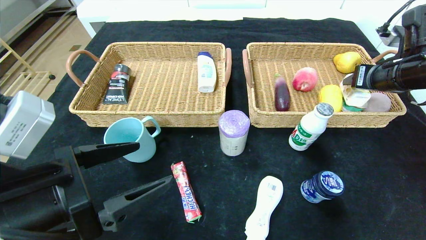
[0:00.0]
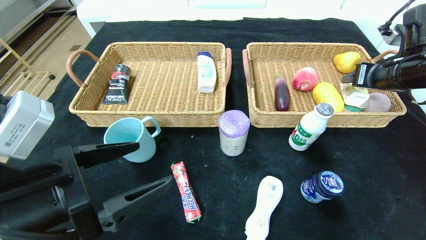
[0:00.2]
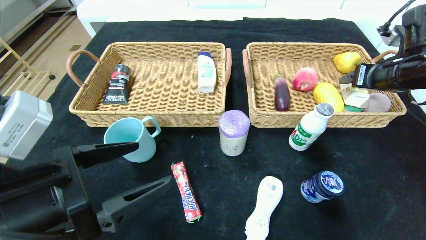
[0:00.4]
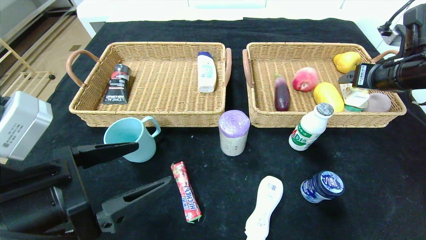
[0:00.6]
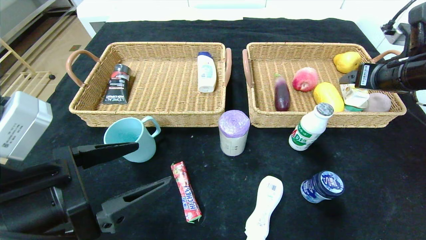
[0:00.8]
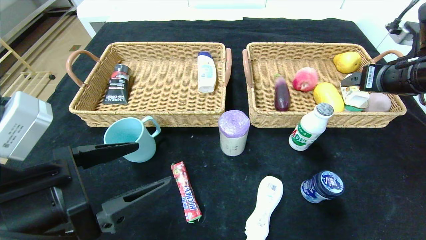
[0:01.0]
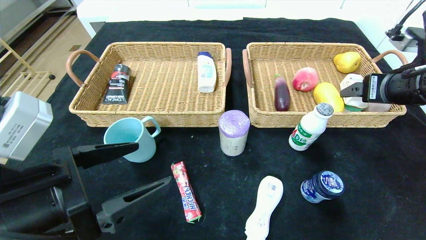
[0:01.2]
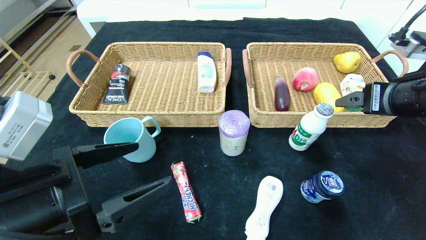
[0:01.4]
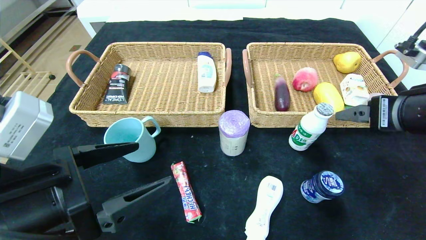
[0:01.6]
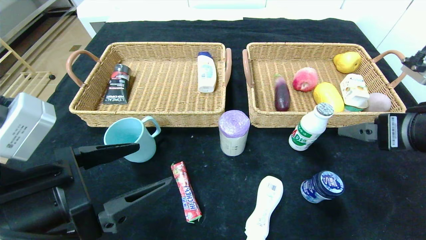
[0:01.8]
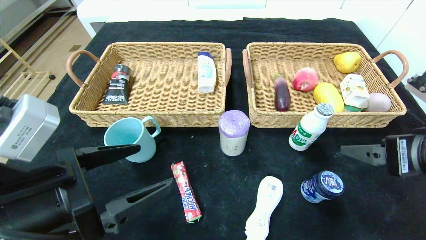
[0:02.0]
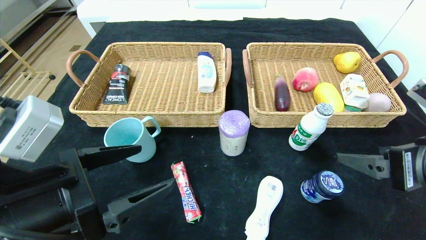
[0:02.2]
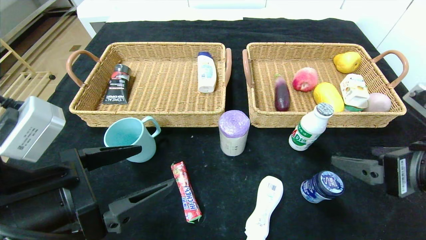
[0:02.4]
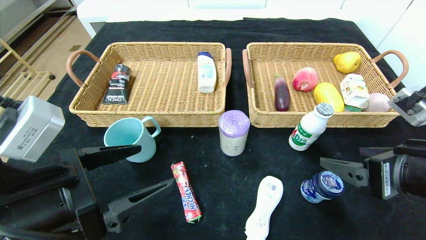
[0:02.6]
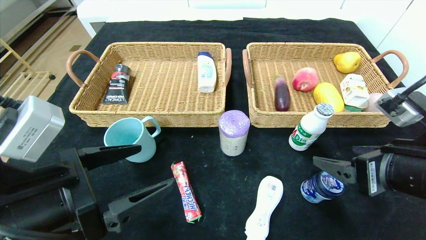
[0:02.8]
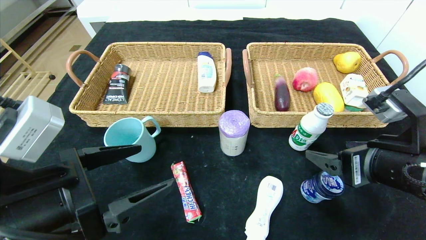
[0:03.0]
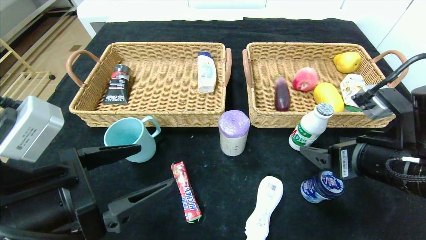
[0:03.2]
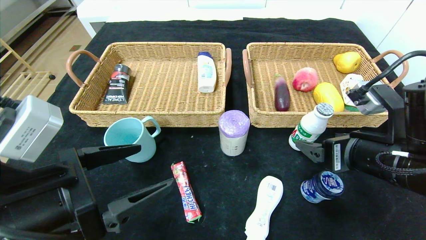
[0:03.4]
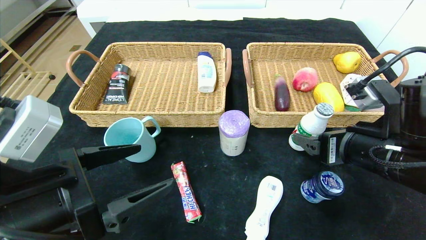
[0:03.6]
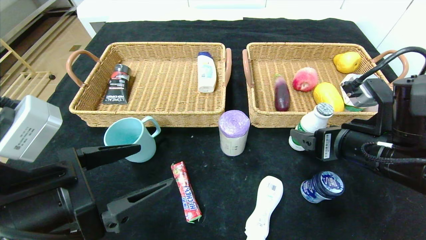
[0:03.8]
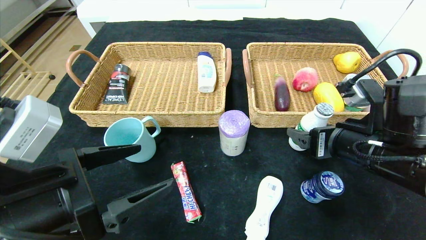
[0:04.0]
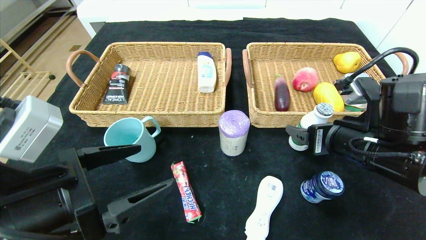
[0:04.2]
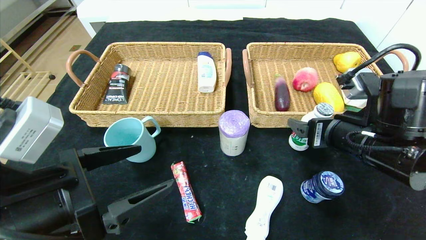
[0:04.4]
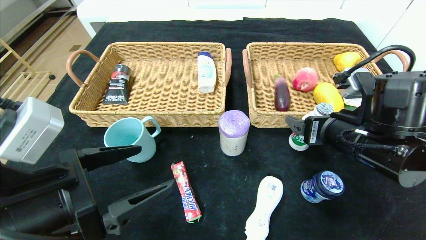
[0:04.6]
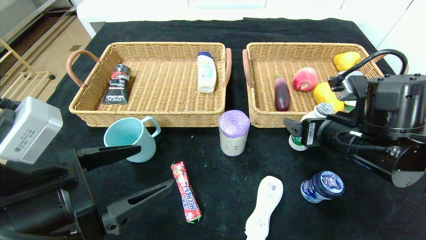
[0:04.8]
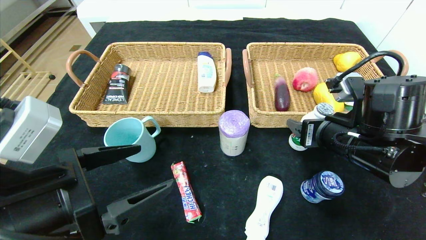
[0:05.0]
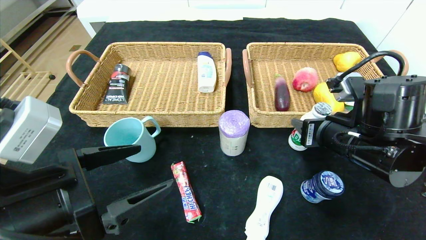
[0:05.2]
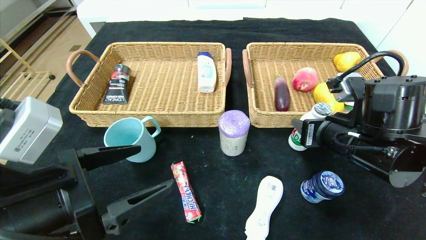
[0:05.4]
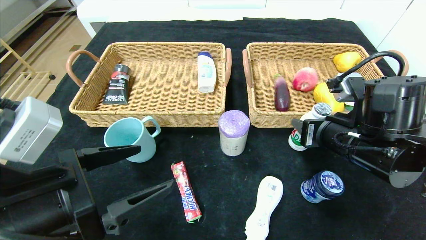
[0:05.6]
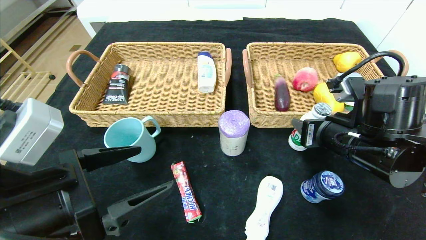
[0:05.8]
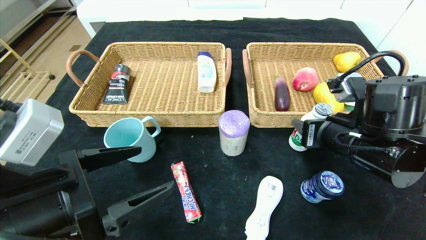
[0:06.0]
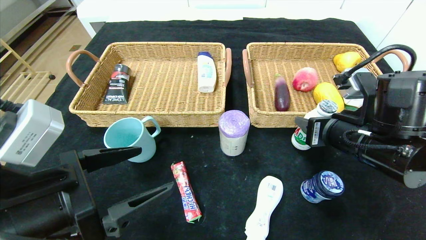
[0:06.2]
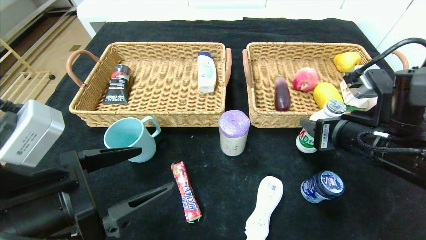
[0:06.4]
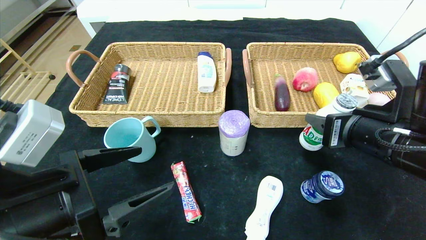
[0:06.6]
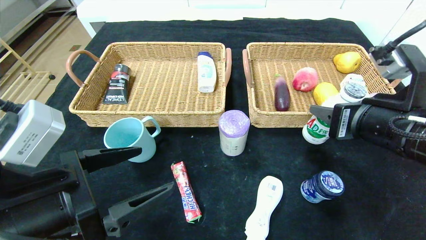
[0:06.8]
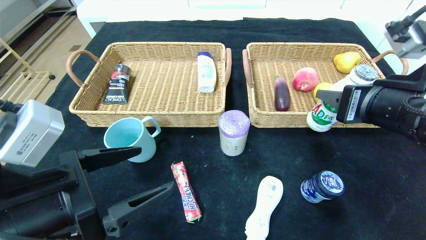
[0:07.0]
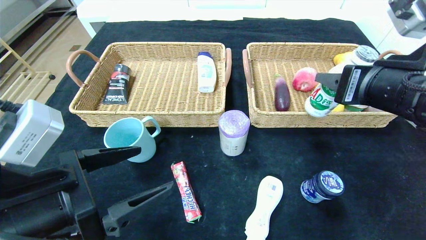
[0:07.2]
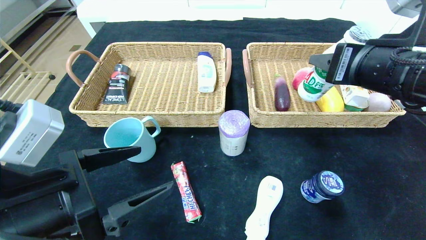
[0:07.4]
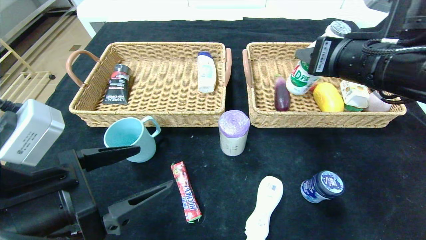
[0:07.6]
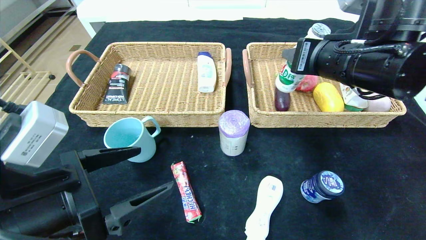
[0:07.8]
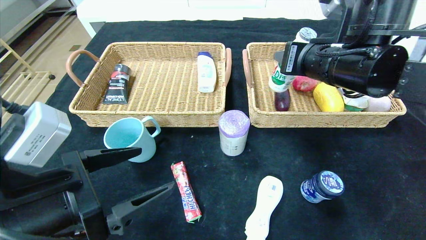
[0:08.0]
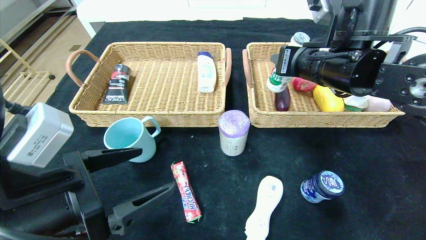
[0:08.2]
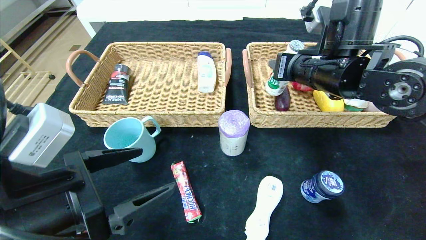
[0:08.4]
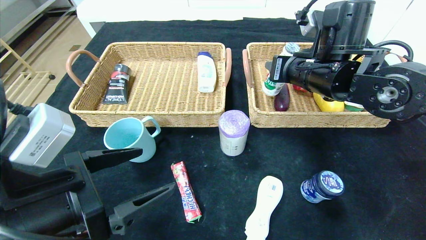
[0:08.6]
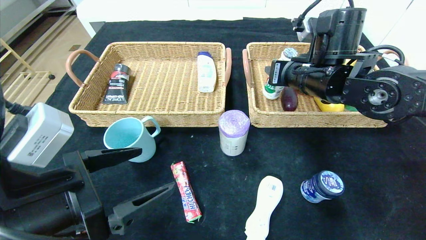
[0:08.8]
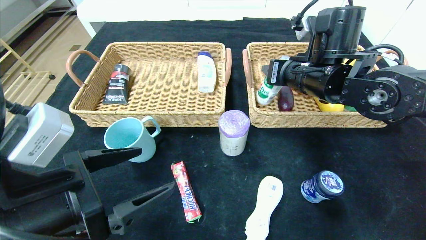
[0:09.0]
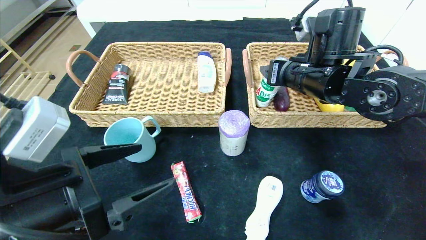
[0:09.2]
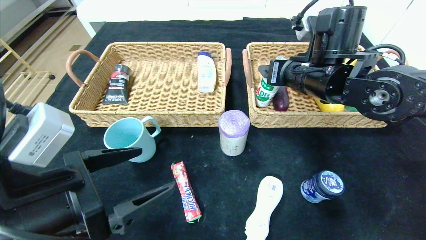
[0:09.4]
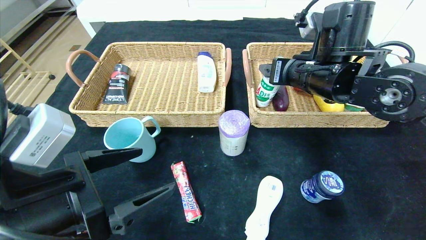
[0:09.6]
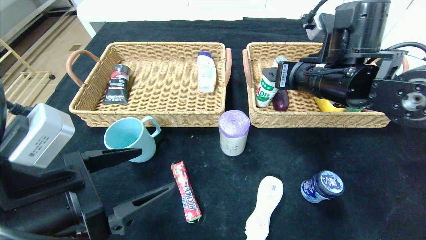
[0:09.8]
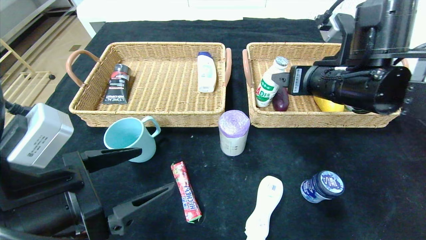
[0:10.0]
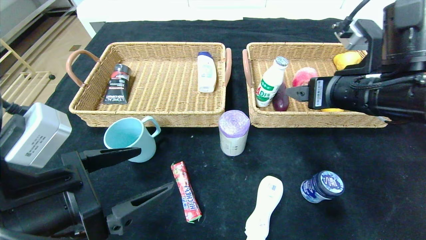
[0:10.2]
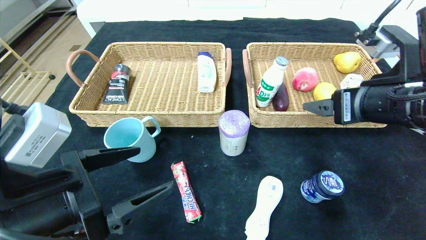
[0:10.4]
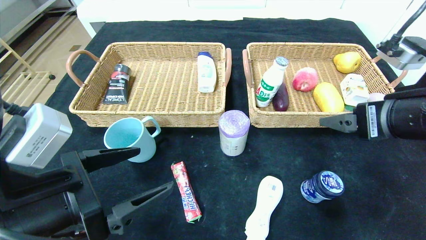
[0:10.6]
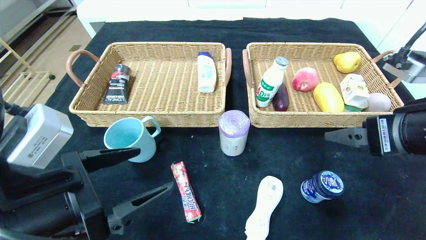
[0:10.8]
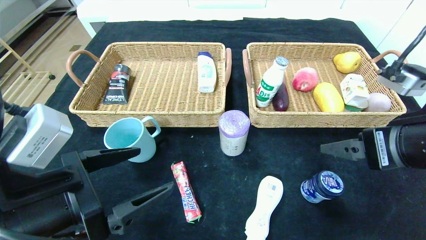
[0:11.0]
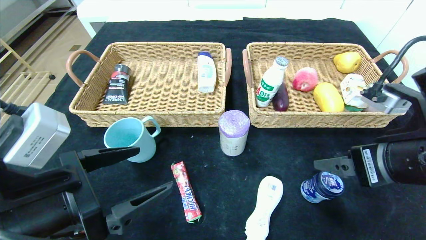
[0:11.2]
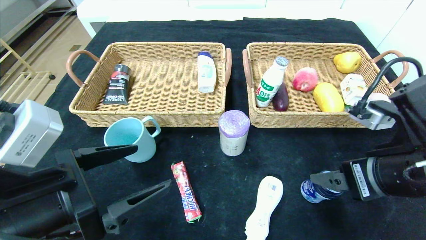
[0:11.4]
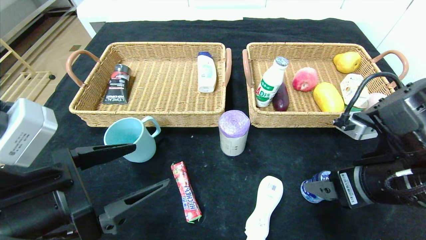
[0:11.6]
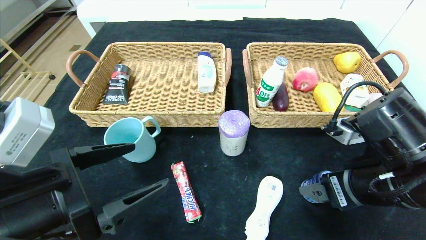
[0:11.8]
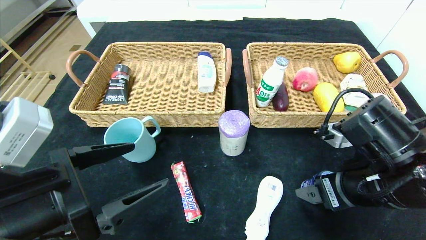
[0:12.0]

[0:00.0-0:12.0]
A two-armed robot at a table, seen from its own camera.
Step, 0:00.6 to 0:09.4: Grasp the ad milk and put it in the right basket.
0:00.0 to 0:01.6: The right gripper travels backward and to the left by approximately 15 cm, and opens up.
0:01.6 to 0:03.0: The right gripper moves downward, about 5 cm.
0:03.0 to 0:04.4: The right gripper is displaced forward by roughly 5 cm.
0:04.4 to 0:06.0: The right gripper closes up.
0:06.0 to 0:07.6: The right gripper is displaced upward by roughly 10 cm.
0:07.6 to 0:09.0: The right gripper goes roughly 10 cm forward.
0:09.0 to 0:10.4: The right gripper heads backward and to the right, covering some 15 cm, and opens its fingers.
0:10.4 to 0:12.0: The right gripper moves downward, approximately 10 cm.

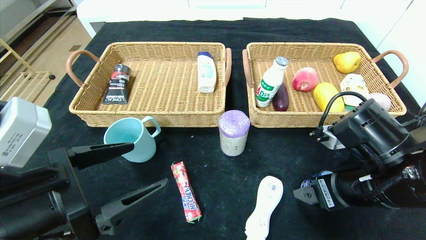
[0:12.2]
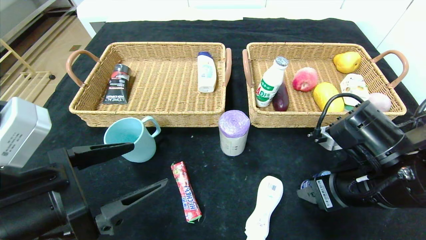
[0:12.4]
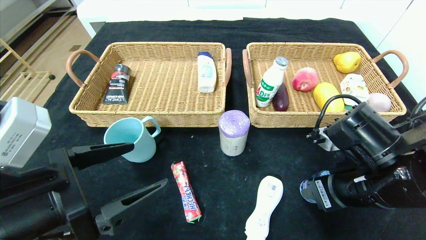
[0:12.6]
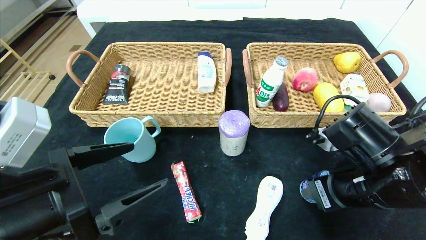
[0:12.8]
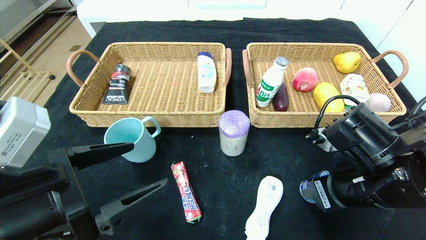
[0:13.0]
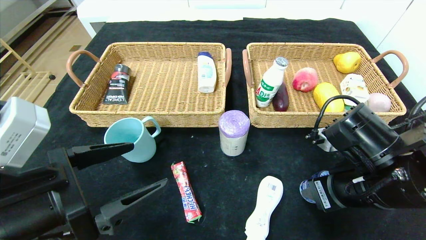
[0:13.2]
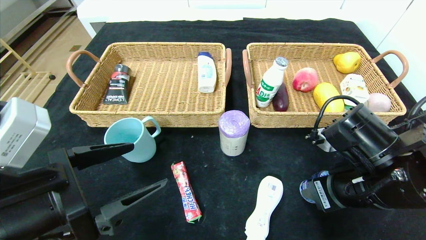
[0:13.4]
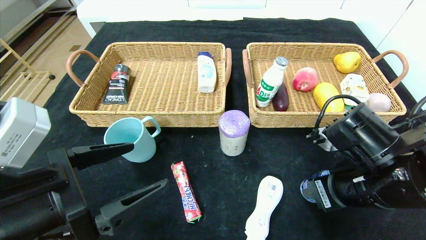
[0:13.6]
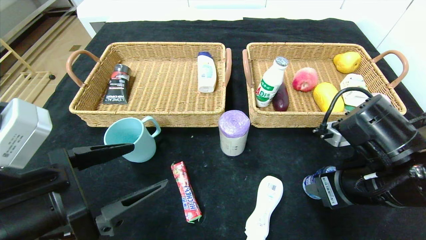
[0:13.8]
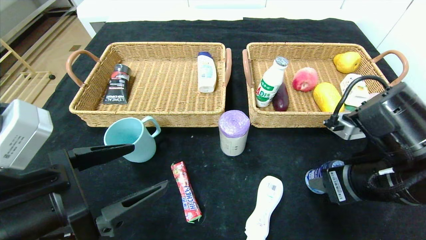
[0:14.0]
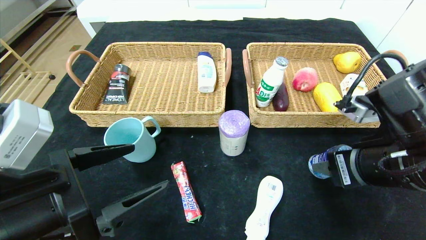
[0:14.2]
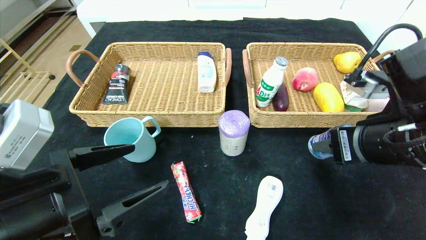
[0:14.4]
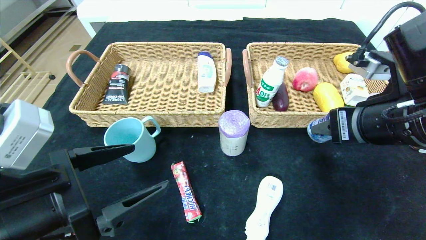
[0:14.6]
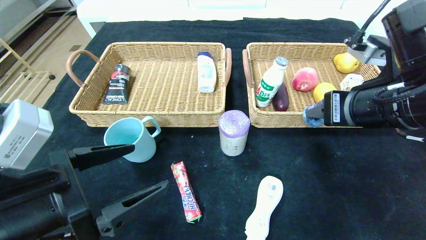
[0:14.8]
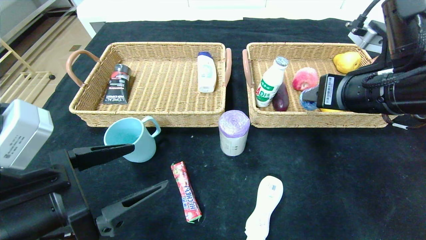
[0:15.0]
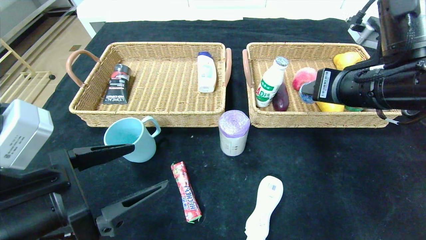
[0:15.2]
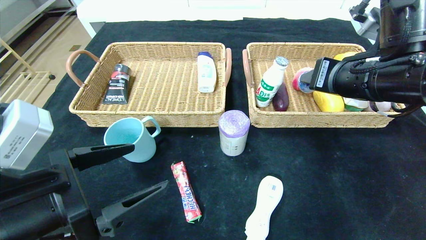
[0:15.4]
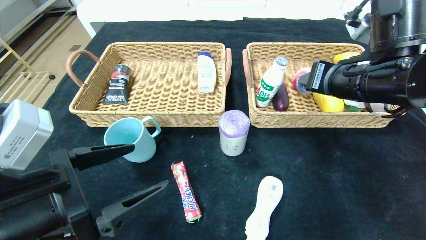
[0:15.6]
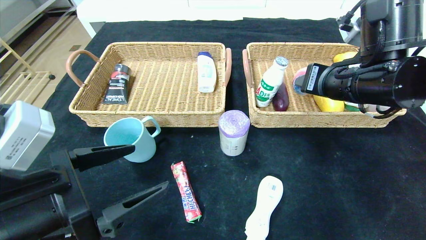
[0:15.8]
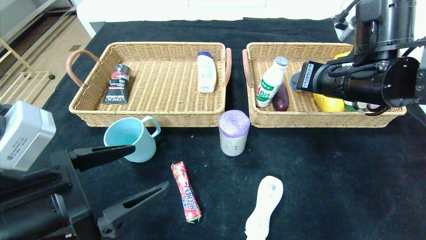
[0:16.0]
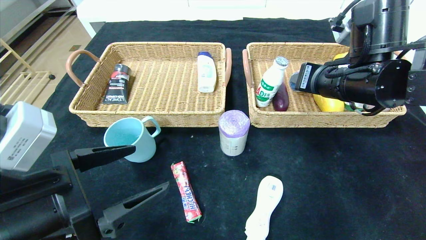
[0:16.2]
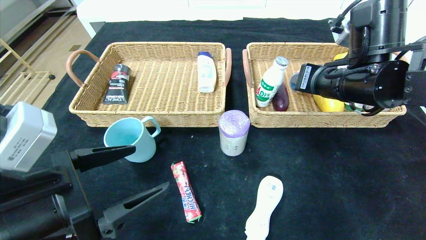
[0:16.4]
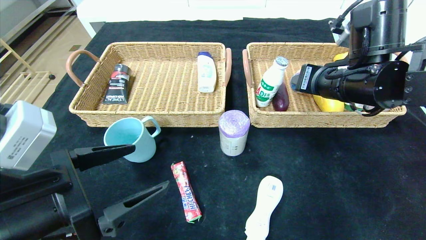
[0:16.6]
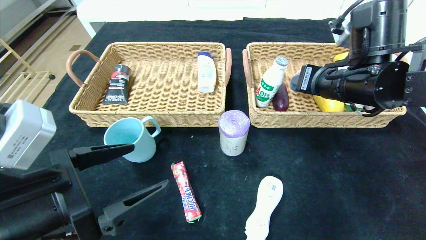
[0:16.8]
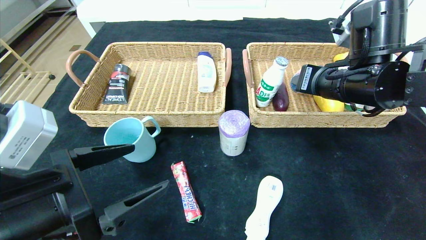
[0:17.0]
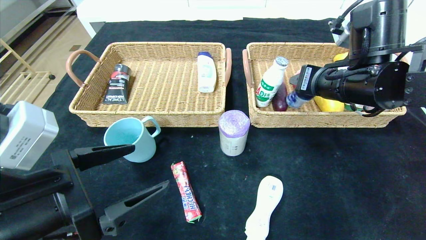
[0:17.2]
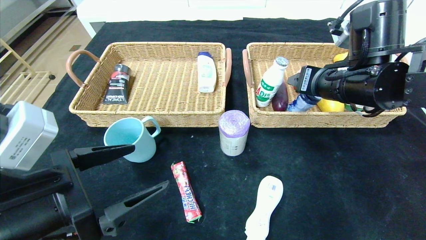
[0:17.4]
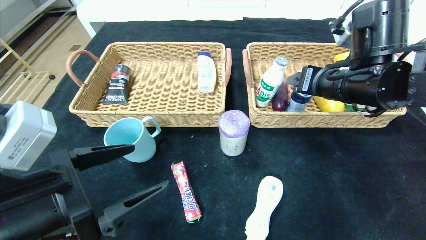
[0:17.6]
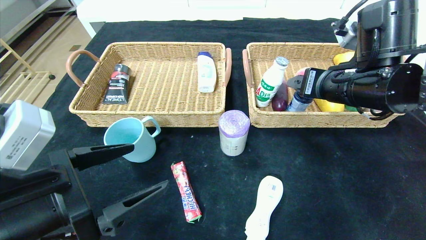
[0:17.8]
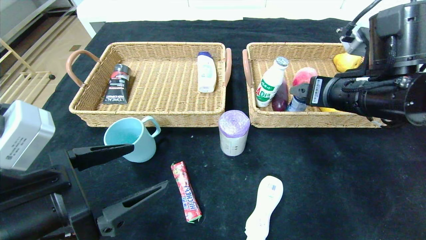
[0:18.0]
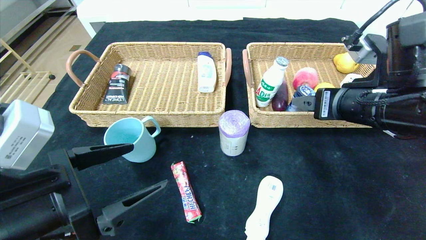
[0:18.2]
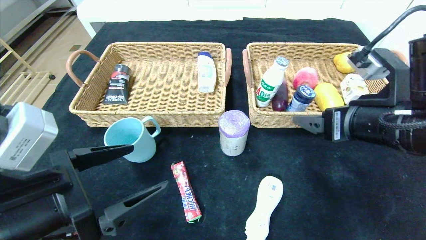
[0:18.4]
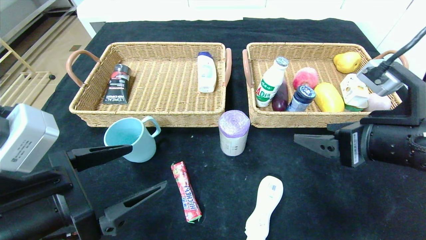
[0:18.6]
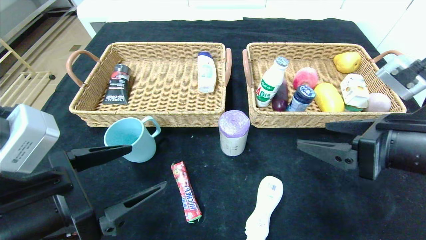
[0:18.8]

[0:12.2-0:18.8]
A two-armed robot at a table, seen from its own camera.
Step, 0:12.2 to 0:17.2: Grasp the round chewing gum and put it in the right basket.
0:12.2 to 0:13.8: The right gripper closes its fingers.
0:13.8 to 0:15.4: The right gripper shifts some 10 cm upward and forward.
0:15.4 to 0:17.2: The grippers make only small movements.
0:17.2 to 0:18.8: The right gripper travels backward by approximately 10 cm, and opens.
